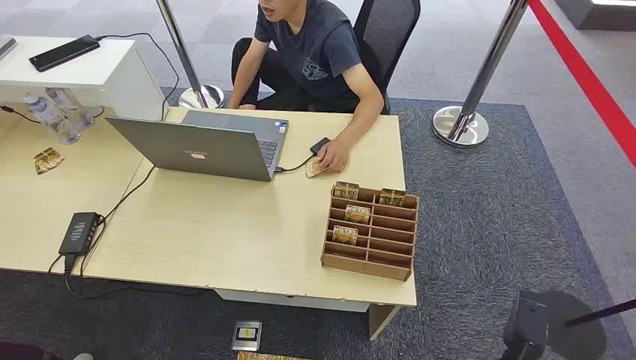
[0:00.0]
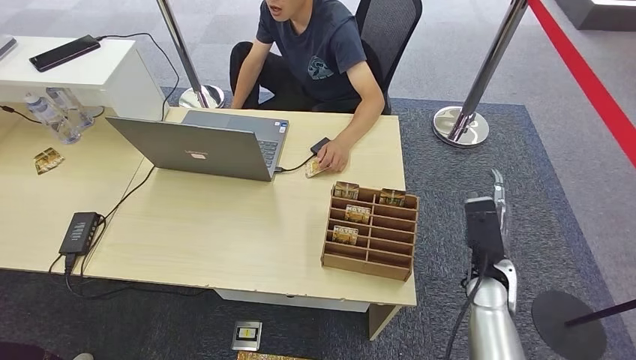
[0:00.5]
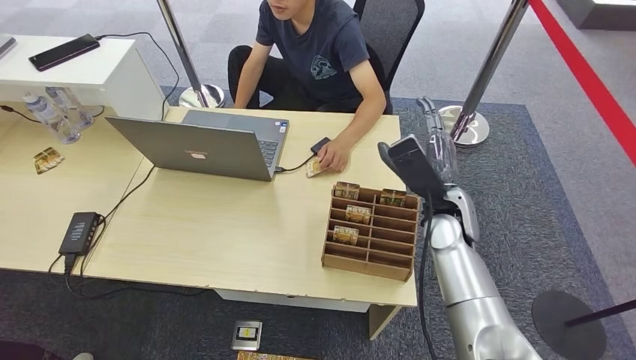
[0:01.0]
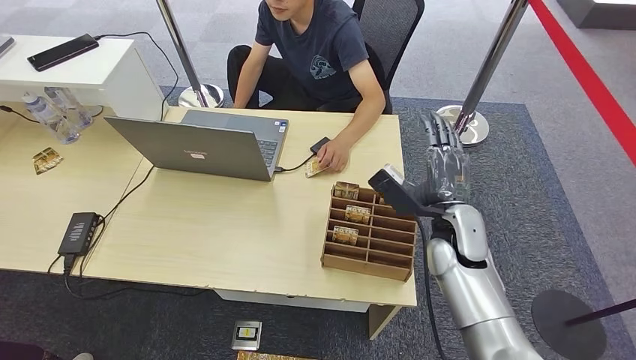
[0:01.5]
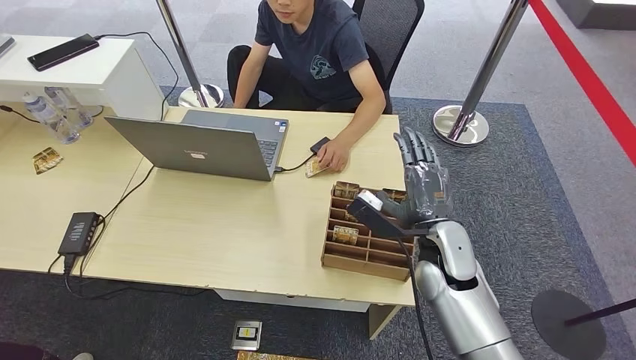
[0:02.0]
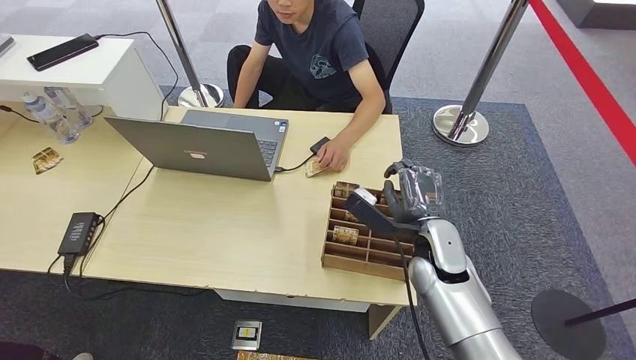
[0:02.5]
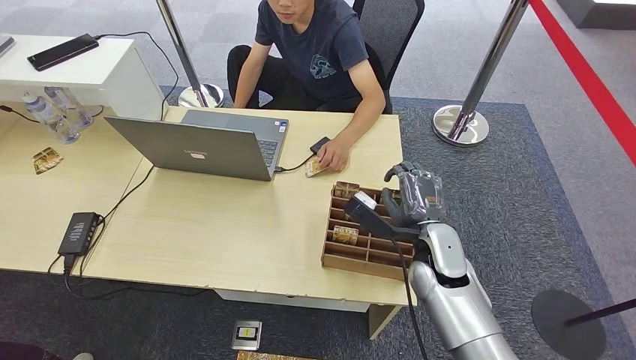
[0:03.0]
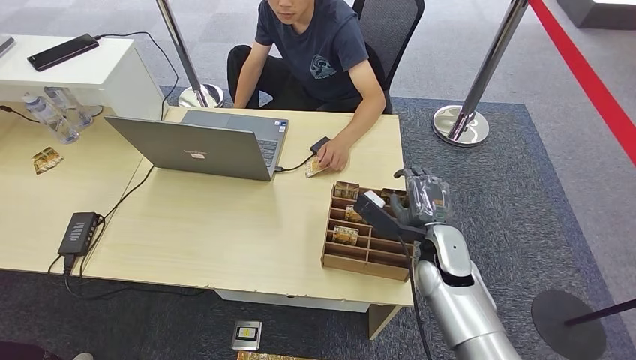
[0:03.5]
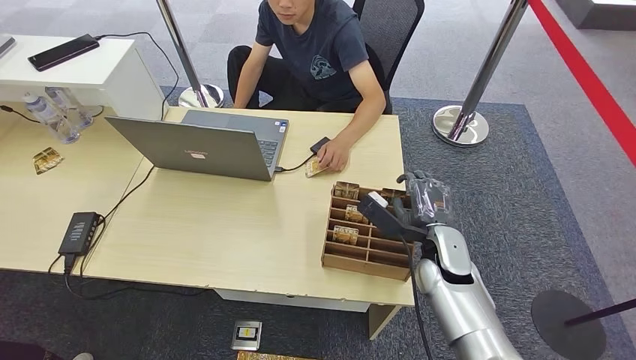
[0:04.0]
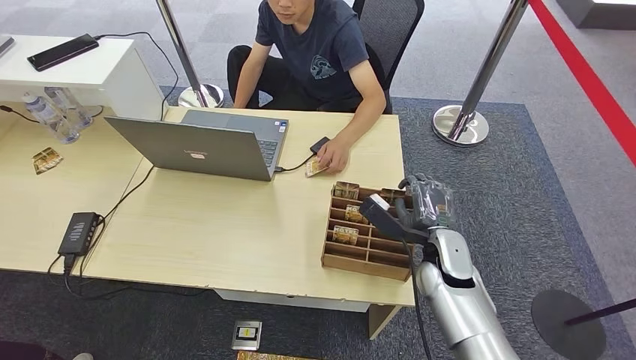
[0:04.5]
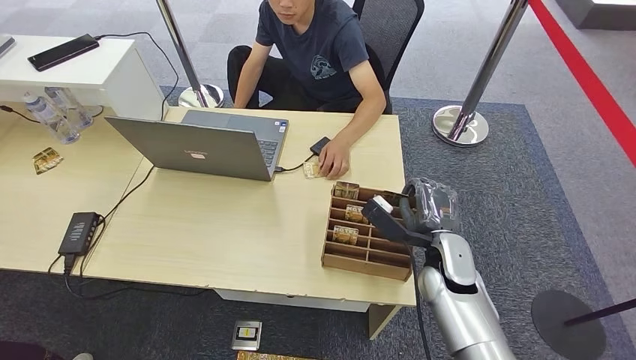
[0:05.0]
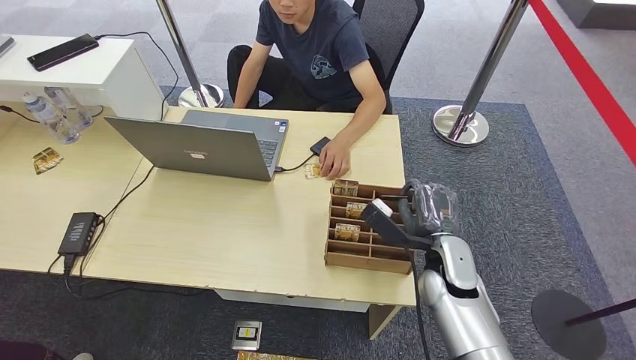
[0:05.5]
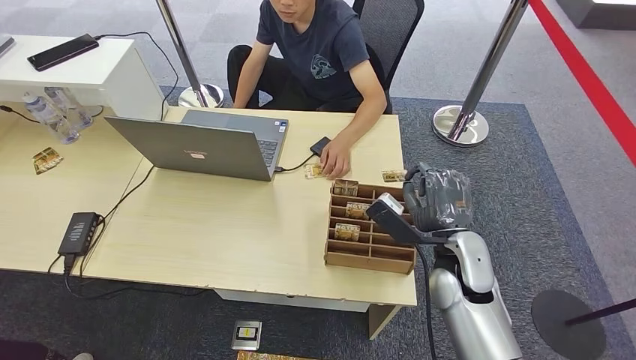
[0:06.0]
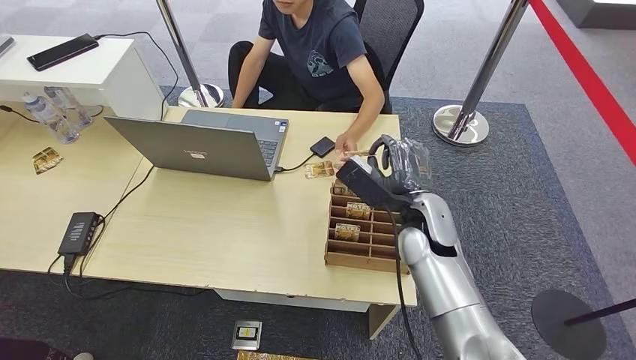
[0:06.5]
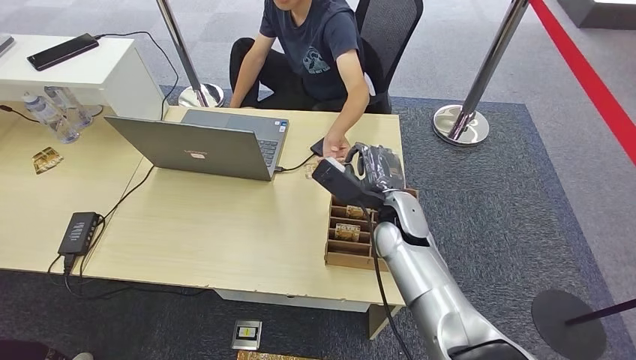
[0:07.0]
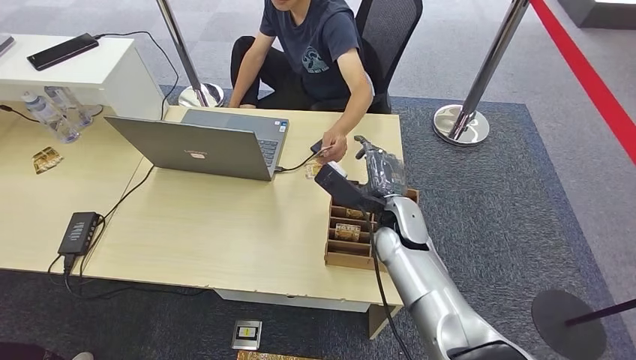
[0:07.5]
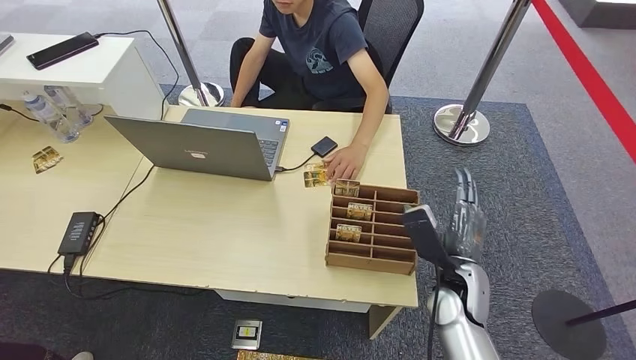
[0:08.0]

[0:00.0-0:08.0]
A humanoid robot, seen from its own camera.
Step, 0:00.0 to 0:06.5: Pick up the key card from the card box.
Step, 0:07.0 to 0:08.0: Hand the key card to the target.
0:02.0 to 0:04.0: The right hand ends up some 5 cm from where it was.
0:04.0 to 0:06.0: The right hand shifts by some 5 cm.
0:06.0 to 0:08.0: The right hand shifts some 5 cm downward, and goes to the left and returns, roughly 10 cm each way.

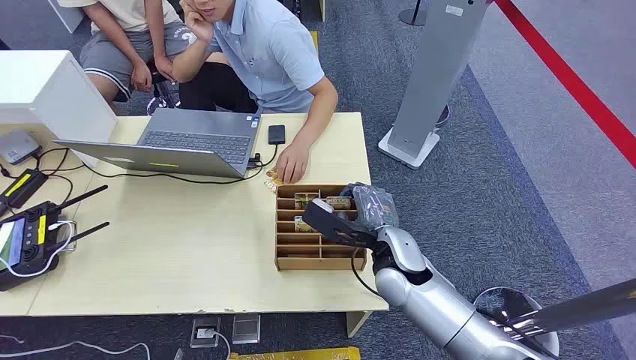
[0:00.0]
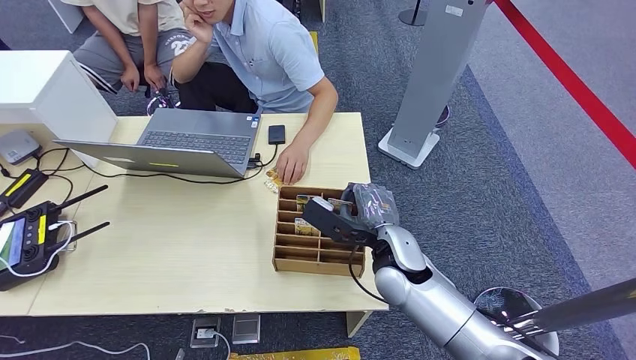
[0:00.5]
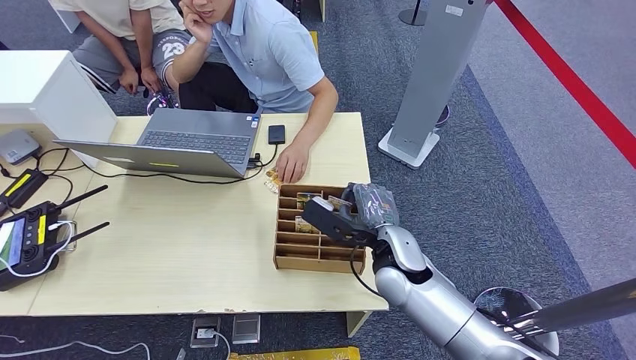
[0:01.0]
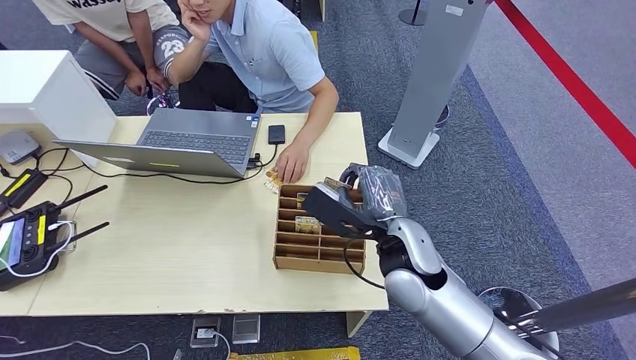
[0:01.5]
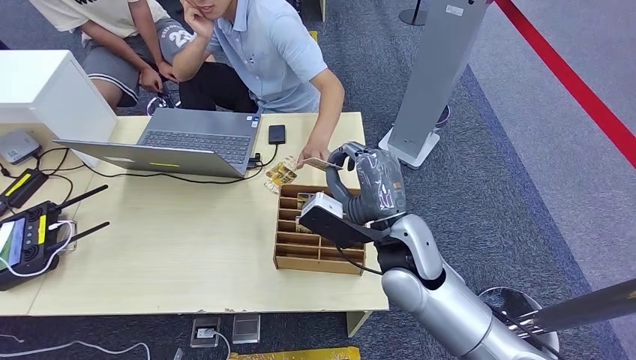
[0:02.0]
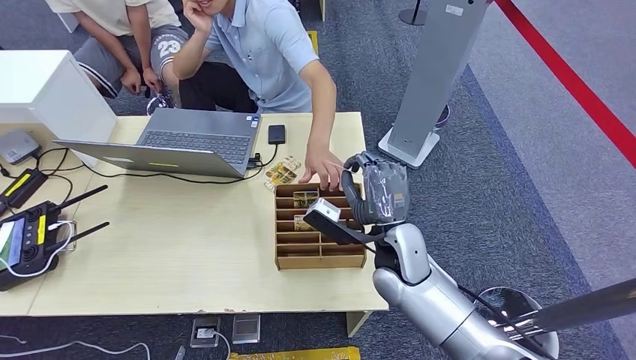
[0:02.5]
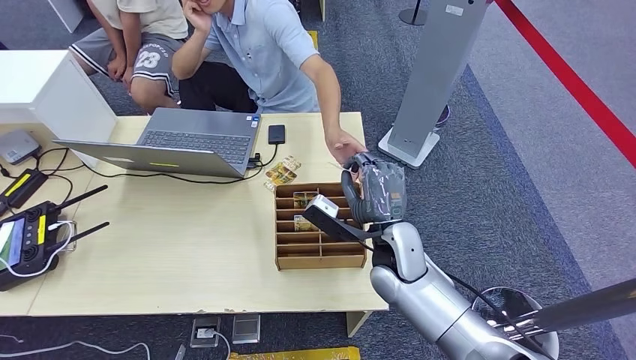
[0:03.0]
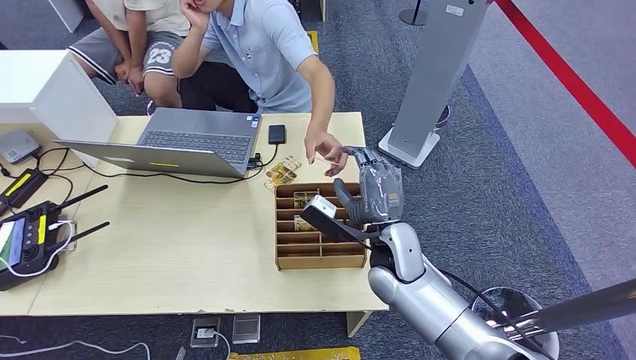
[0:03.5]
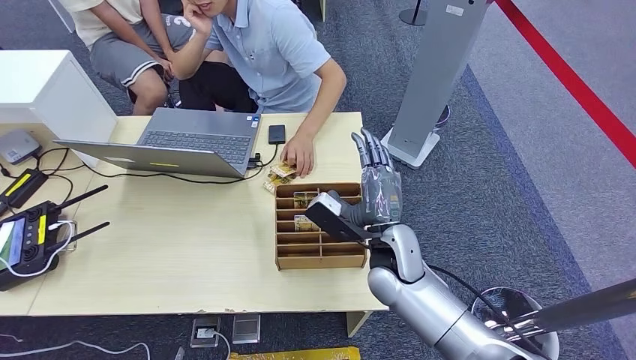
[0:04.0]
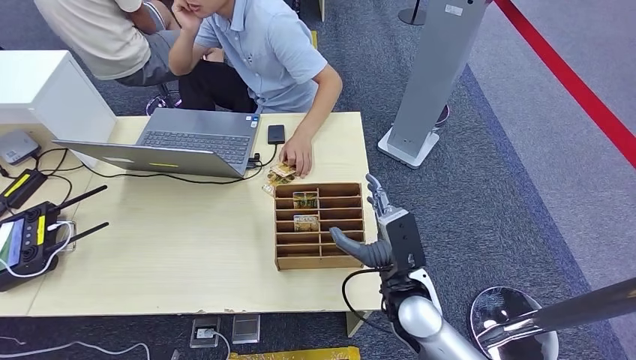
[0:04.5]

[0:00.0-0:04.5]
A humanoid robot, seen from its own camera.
Step, 0:00.0 to 0:01.5: Pick up the key card from the card box.
Step, 0:02.5 to 0:04.5: Hand the key card to the target.
0:02.0 to 0:04.5: The right hand moves downward, some 10 cm.
